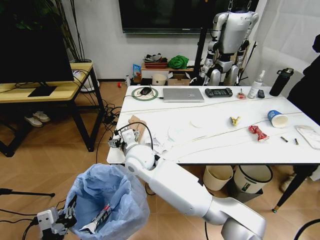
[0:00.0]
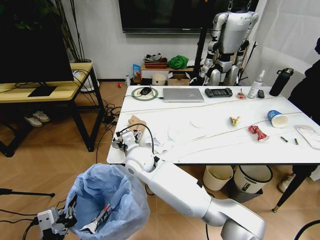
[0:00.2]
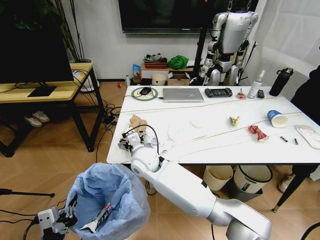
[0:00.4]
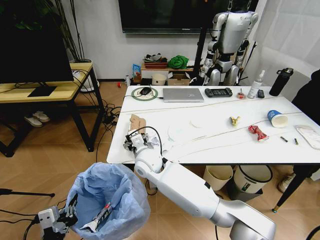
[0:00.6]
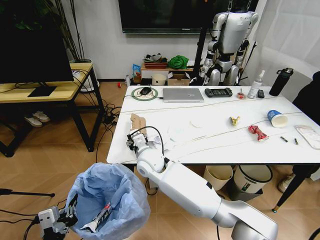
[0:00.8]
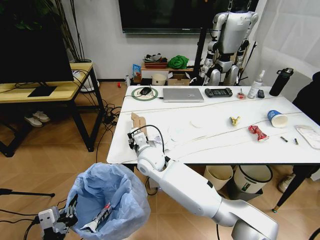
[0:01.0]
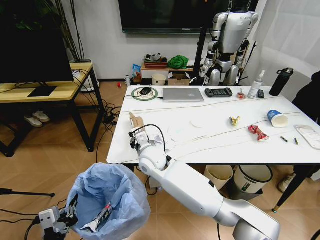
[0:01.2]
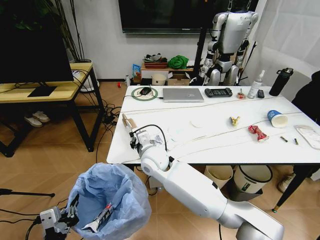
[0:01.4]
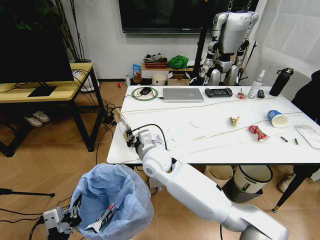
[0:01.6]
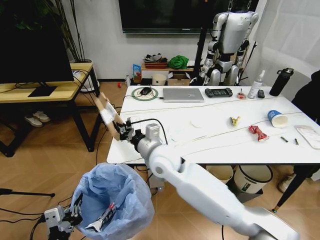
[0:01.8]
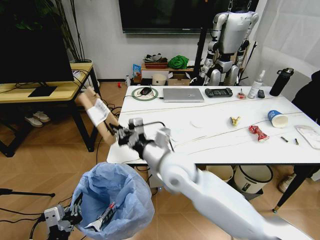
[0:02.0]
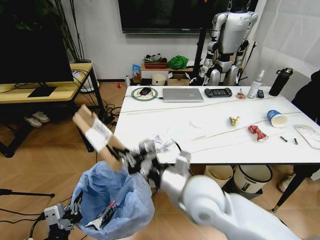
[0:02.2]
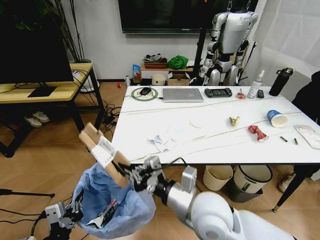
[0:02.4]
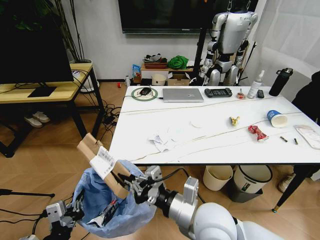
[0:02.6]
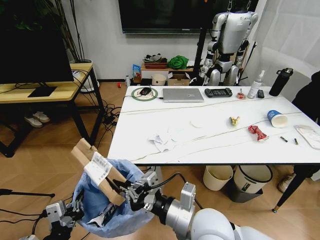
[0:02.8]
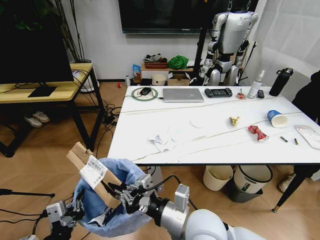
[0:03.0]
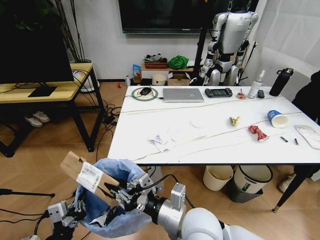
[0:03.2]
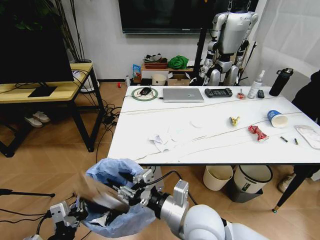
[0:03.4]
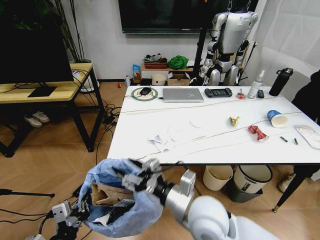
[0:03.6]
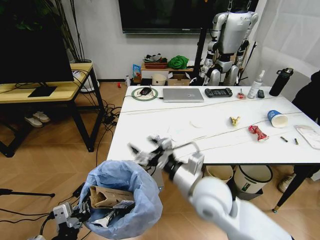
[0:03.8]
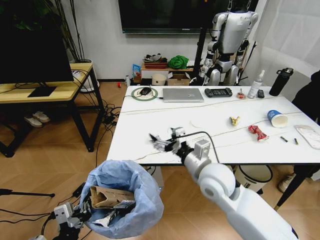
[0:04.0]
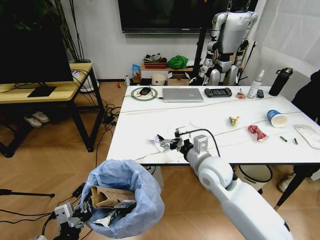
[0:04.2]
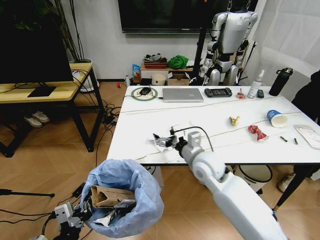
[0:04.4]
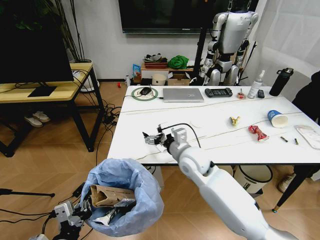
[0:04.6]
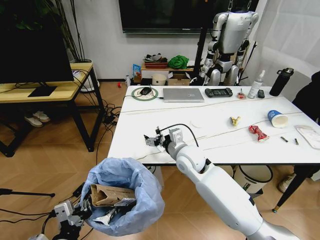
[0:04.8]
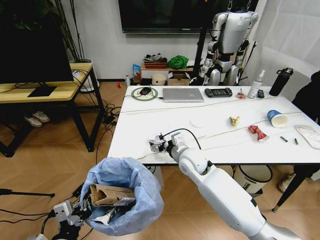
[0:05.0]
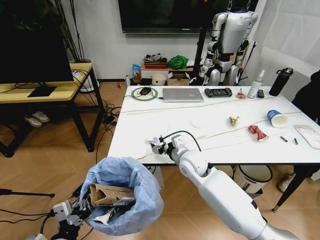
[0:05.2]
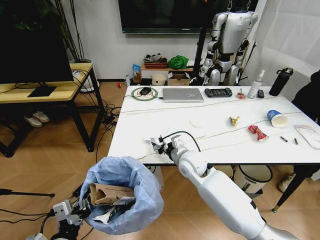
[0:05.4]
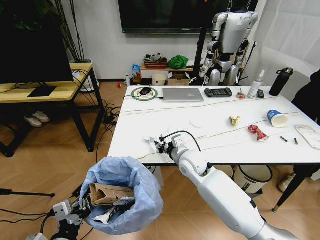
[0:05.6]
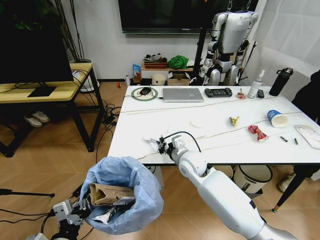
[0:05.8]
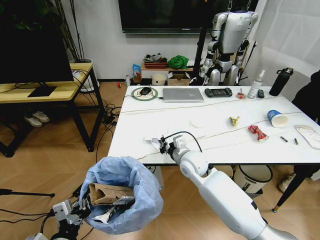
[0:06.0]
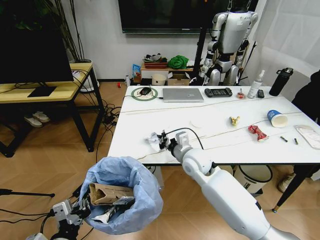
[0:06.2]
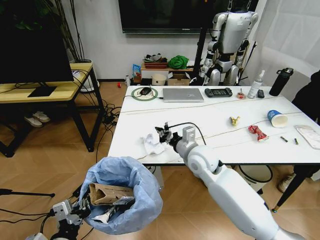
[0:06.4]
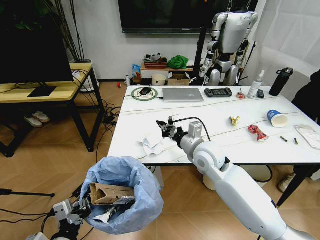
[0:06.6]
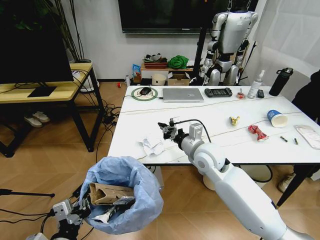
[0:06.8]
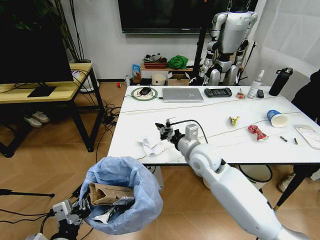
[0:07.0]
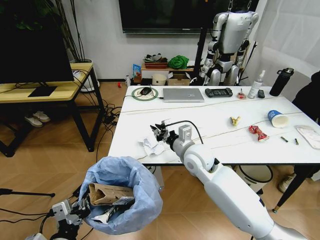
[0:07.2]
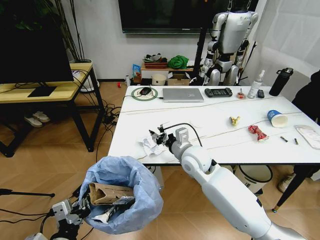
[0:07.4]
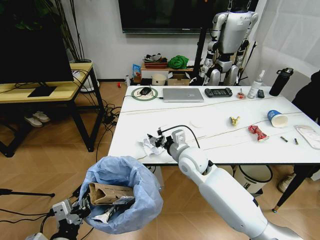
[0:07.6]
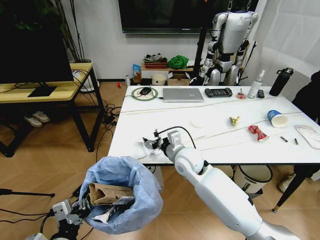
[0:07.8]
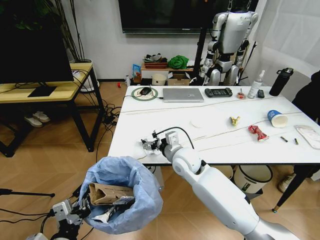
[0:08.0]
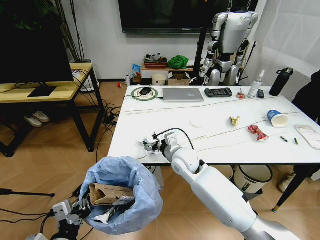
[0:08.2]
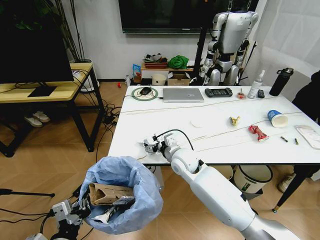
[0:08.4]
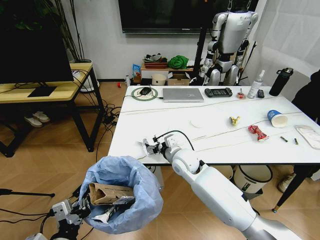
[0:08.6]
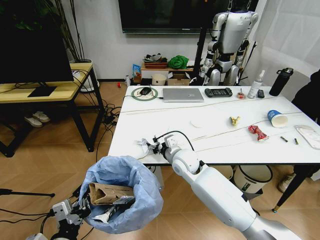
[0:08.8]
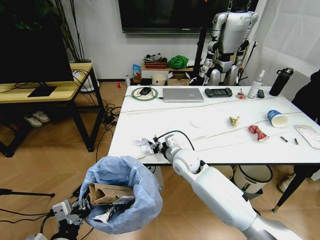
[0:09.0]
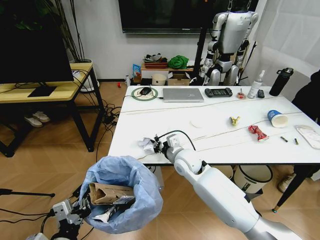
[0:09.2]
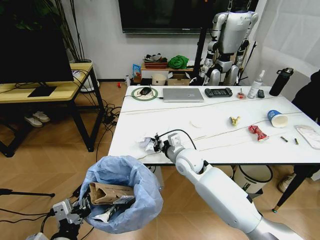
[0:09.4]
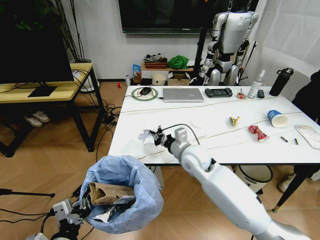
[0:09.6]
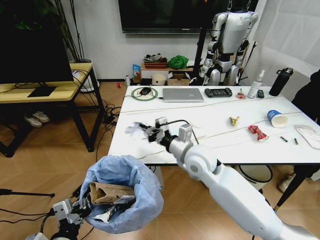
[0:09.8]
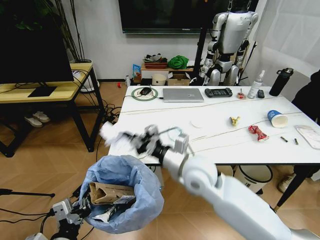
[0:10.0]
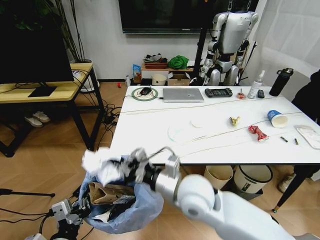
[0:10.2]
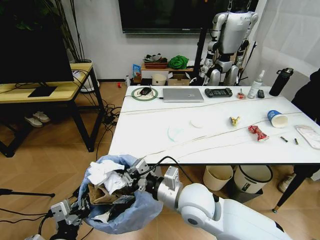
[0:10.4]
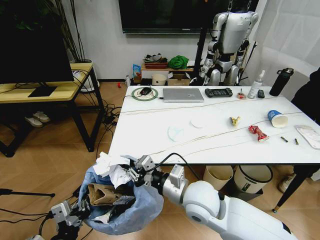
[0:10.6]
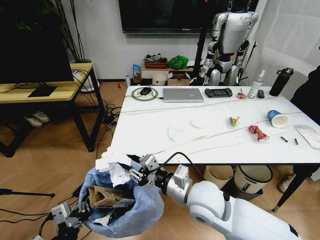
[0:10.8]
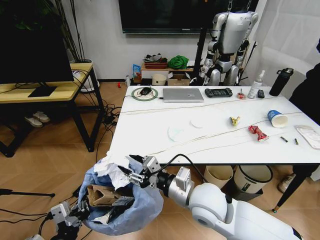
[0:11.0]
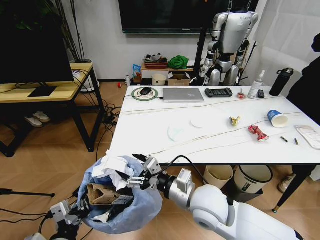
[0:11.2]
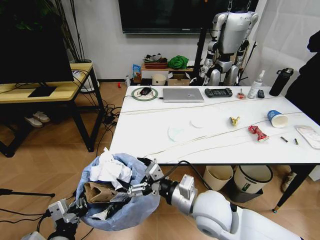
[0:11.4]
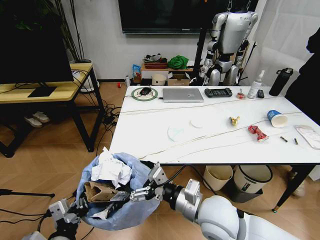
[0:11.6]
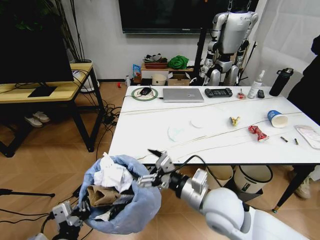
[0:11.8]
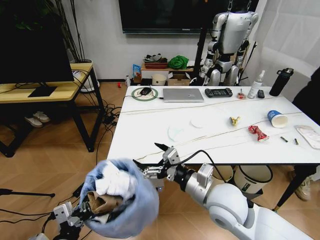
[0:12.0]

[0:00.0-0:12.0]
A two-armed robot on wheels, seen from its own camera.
Task of the whole recording: Pick up the trash bin and place the trash from the table into it.
0:00.0 to 0:01.6: The right gripper moves to the right, about 5 cm, and closes its fingers.
0:01.6 to 0:03.0: The right gripper moves backward and to the right, about 25 cm.
0:03.0 to 0:04.4: The right gripper travels forward by roughly 20 cm, and opens up.
0:04.4 to 0:06.0: The right gripper shifts by about 5 cm, and closes.
0:06.0 to 0:07.6: The right gripper opens.
0:07.6 to 0:09.0: The grippers stay close to where they were, moving slightly.
0:09.0 to 0:10.4: The right gripper moves backward, about 15 cm, and closes up.
0:10.4 to 0:12.0: The right gripper moves to the right, roughly 5 cm, and opens up.

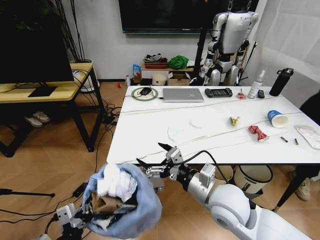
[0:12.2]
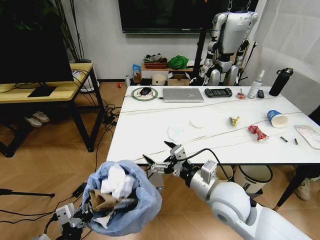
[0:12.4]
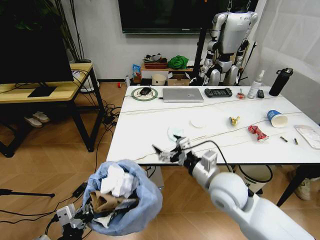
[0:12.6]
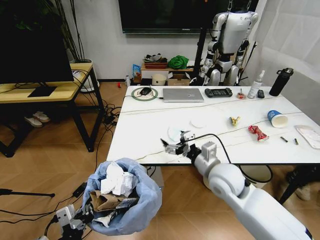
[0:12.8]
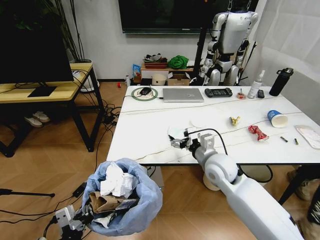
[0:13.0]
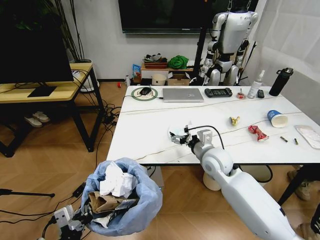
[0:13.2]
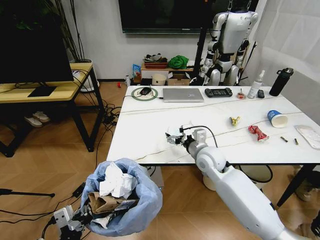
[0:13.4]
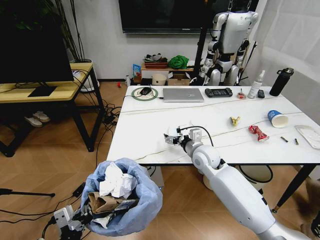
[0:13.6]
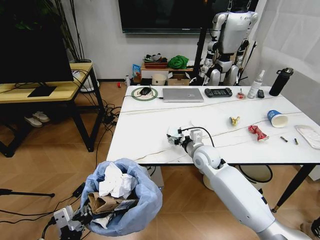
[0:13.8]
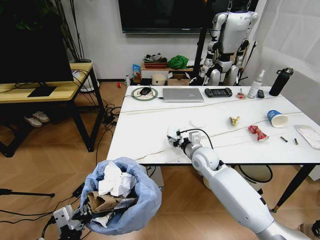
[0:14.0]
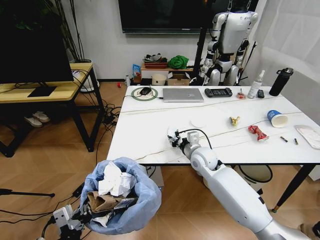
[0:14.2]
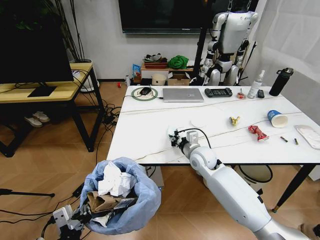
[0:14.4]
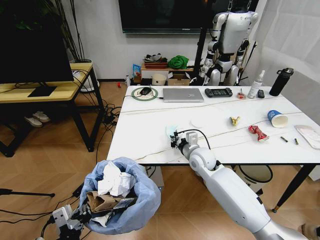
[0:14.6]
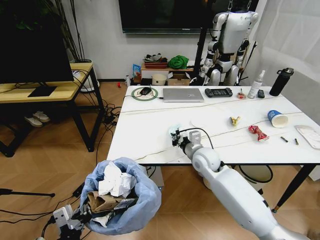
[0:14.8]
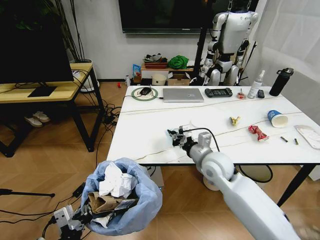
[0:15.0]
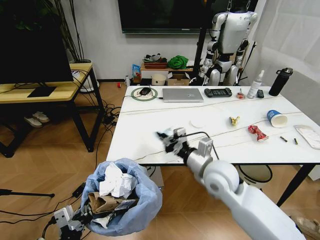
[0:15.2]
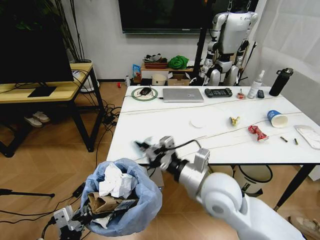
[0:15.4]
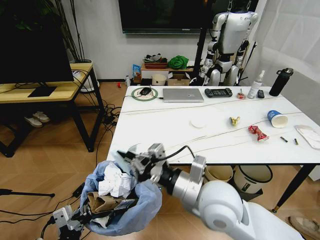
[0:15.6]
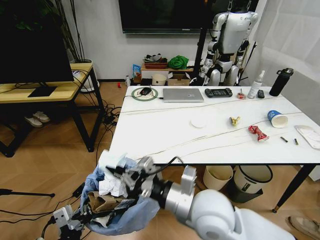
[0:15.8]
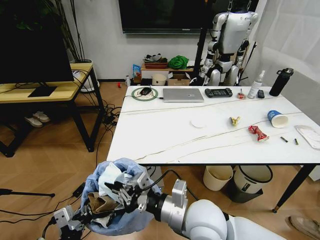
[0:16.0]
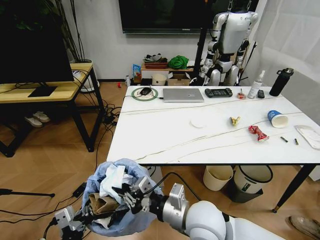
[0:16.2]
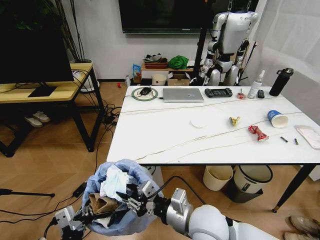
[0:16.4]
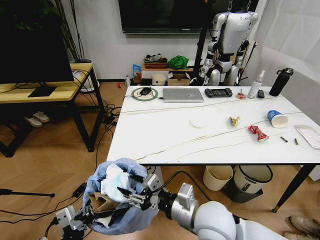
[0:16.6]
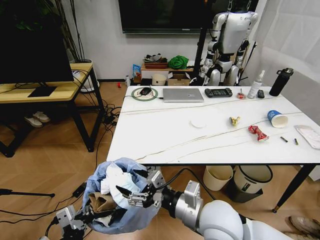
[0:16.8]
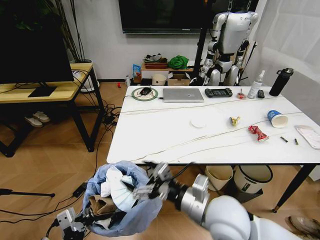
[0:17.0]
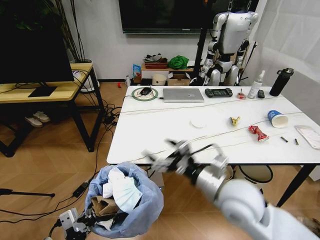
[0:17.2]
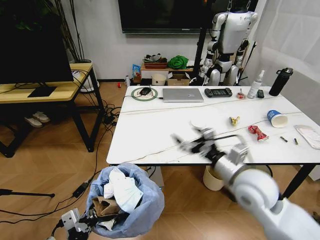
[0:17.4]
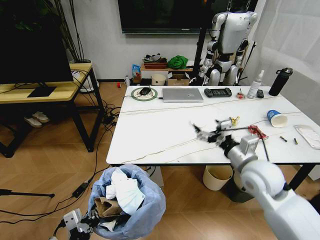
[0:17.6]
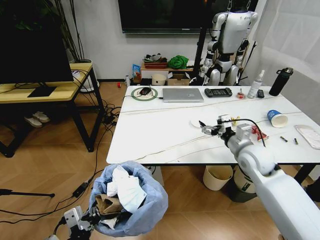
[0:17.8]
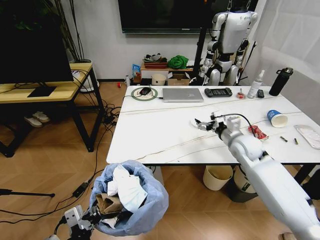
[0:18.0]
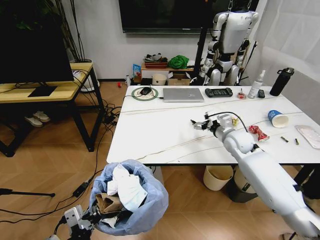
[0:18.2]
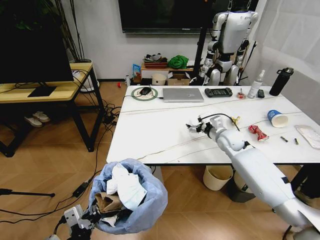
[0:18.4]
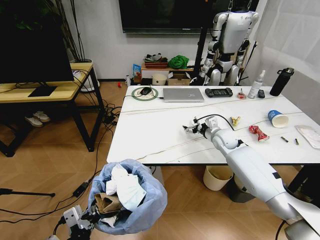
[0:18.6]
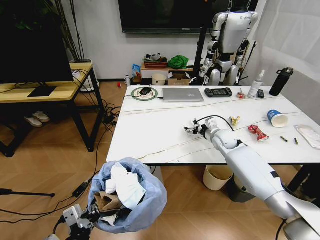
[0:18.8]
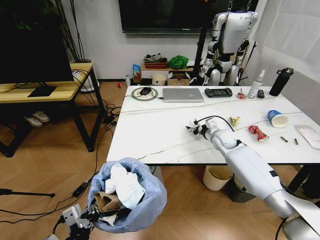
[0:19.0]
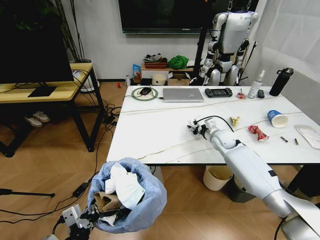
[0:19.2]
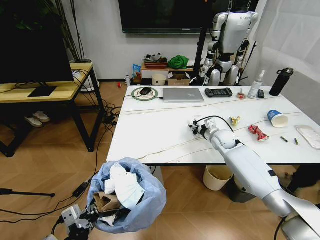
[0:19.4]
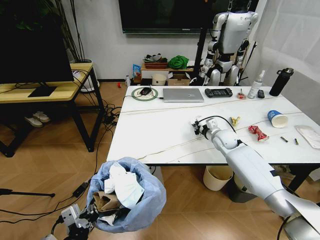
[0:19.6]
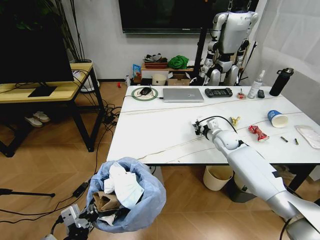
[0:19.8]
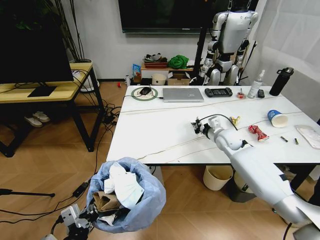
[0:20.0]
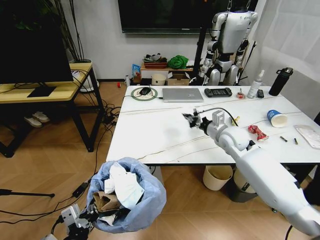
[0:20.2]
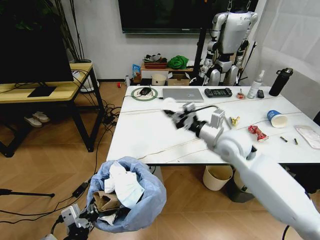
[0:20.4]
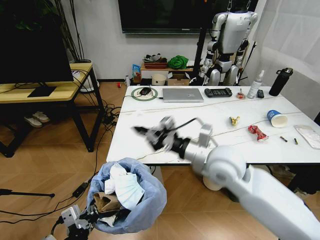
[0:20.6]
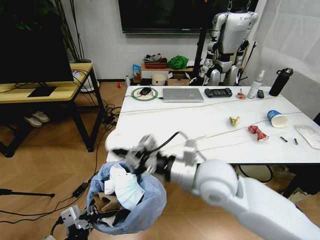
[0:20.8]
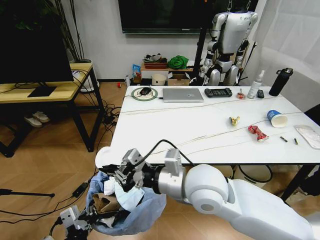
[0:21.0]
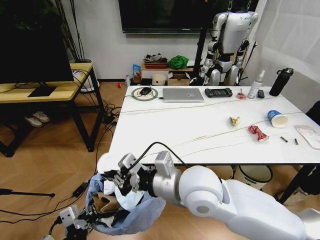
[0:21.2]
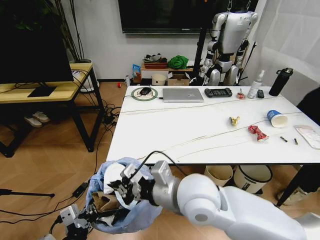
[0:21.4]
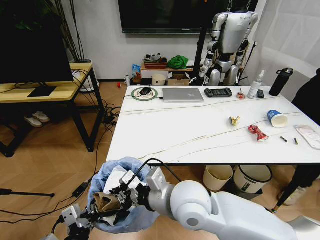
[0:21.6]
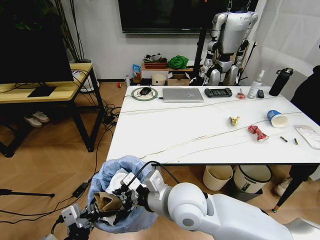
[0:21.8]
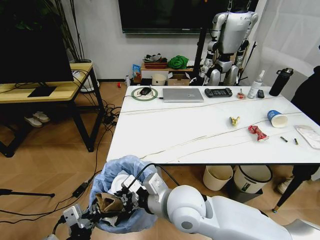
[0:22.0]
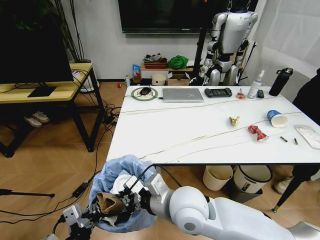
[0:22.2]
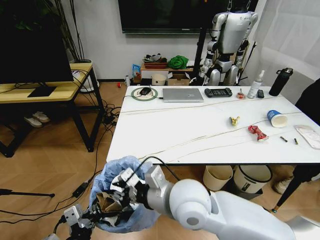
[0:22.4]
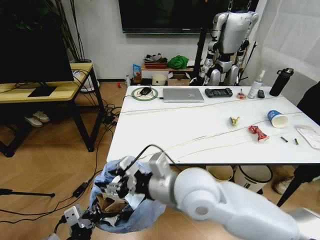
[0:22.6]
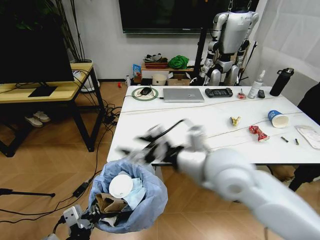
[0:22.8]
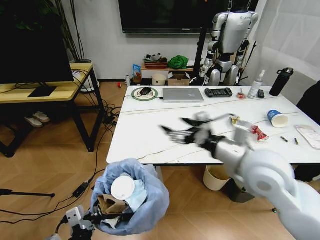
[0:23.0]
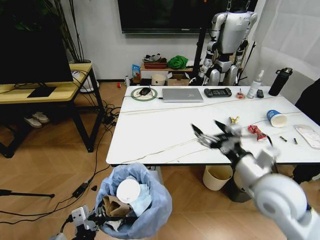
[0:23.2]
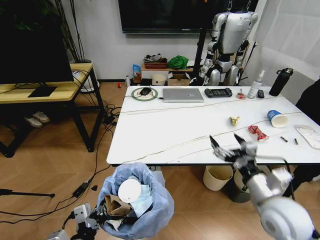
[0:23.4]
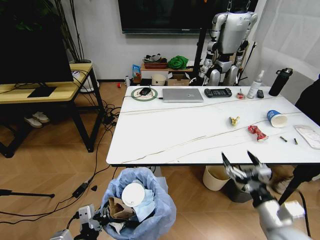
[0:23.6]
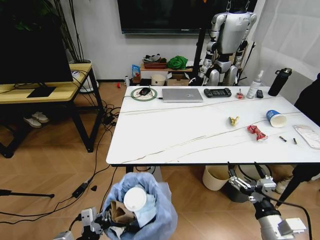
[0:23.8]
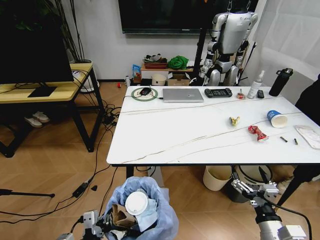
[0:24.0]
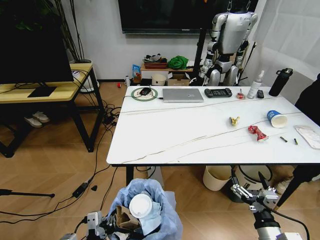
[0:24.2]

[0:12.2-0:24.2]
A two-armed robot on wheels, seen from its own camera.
Task of the whole recording: Pick up the trash bin and place the trash from the table into it.
0:12.2 to 0:13.8: The right gripper travels forward by about 20 cm.
0:13.8 to 0:15.2: The right gripper heads backward and upward, covering roughly 15 cm, and closes its fingers.
0:15.2 to 0:16.6: The right gripper goes some 10 cm backward, and opens its fingers.
0:16.6 to 0:18.2: The right gripper heads forward and to the right, covering about 35 cm, and opens.
0:18.2 to 0:19.8: The right gripper moves about 5 cm, and closes up.
0:19.8 to 0:21.2: The right gripper heads backward, to the left and upward, covering some 40 cm.
0:21.2 to 0:22.6: The right gripper moves about 5 cm downward and comes back, and opens up.
0:22.6 to 0:24.2: The left gripper is displaced downward by about 5 cm, while the right gripper is displaced to the right, downward and backward by approximately 35 cm, and opens its fingers.
